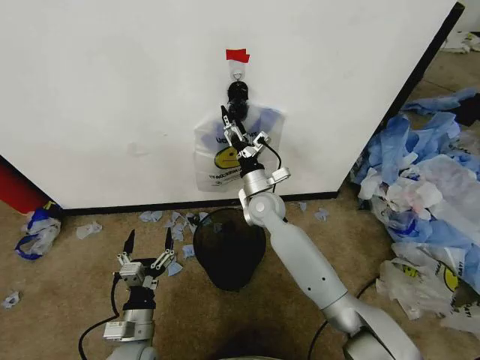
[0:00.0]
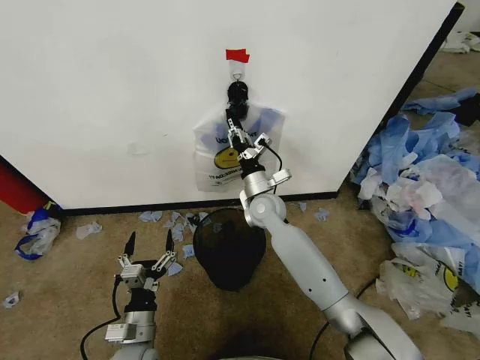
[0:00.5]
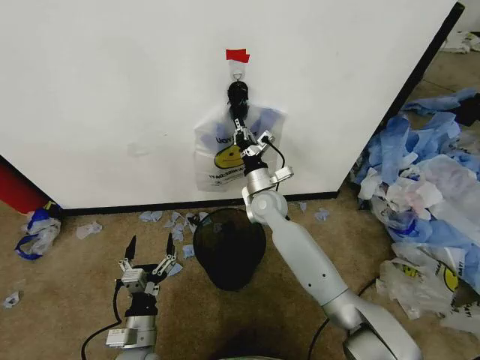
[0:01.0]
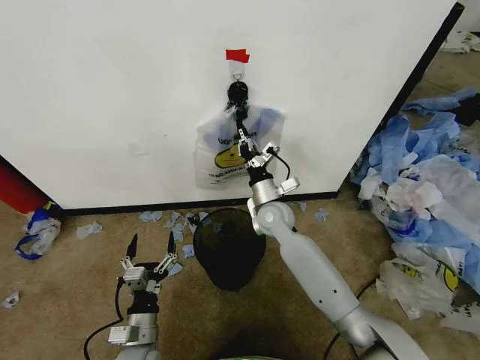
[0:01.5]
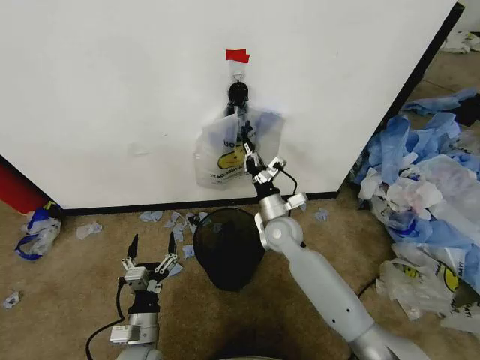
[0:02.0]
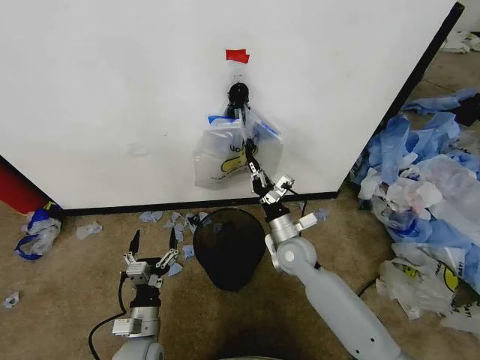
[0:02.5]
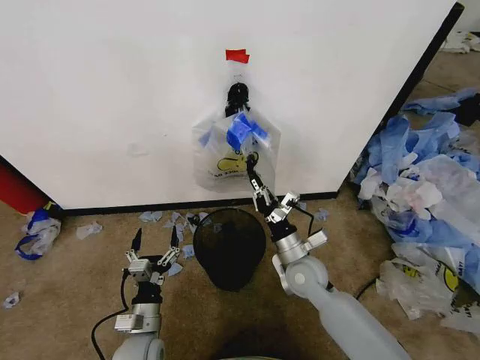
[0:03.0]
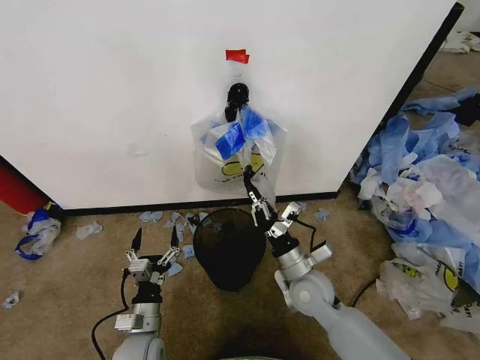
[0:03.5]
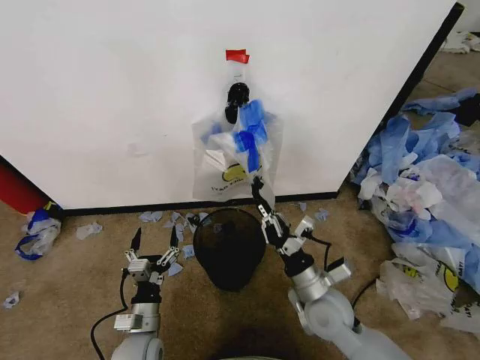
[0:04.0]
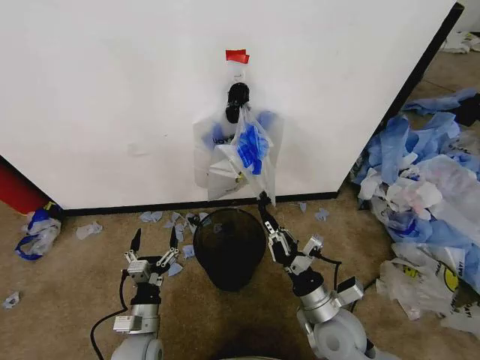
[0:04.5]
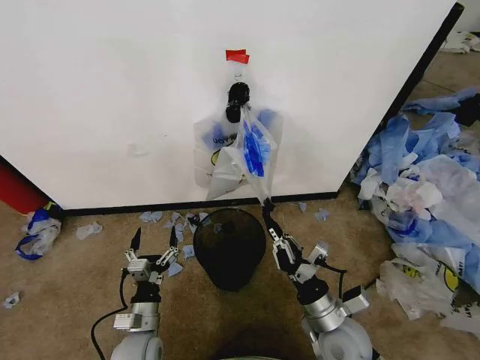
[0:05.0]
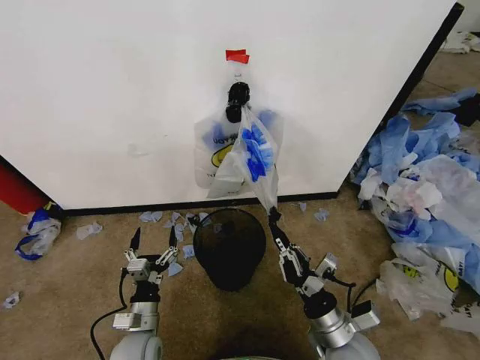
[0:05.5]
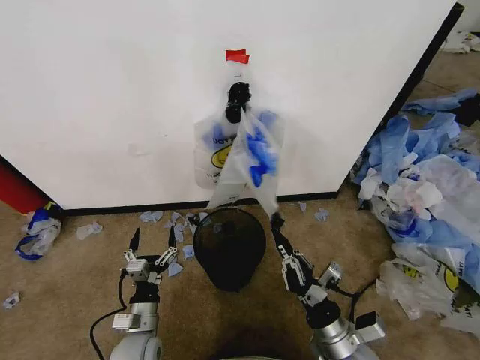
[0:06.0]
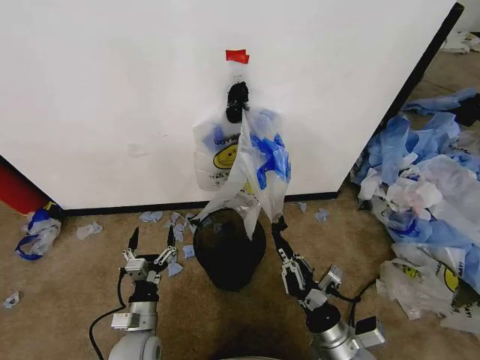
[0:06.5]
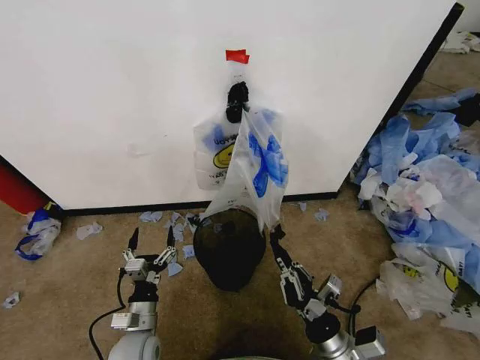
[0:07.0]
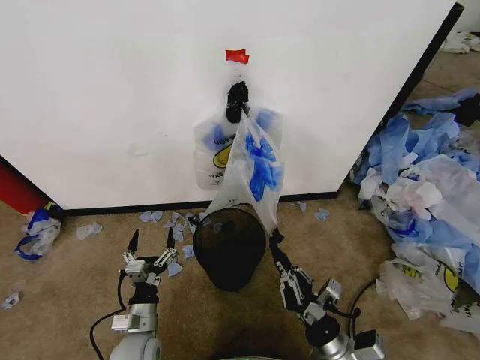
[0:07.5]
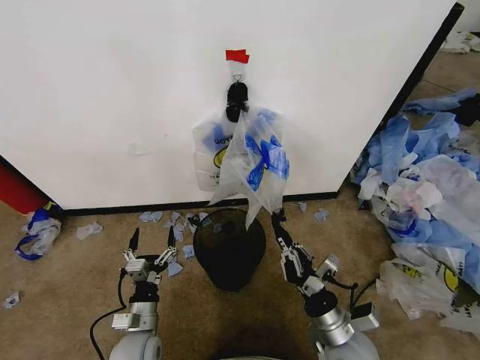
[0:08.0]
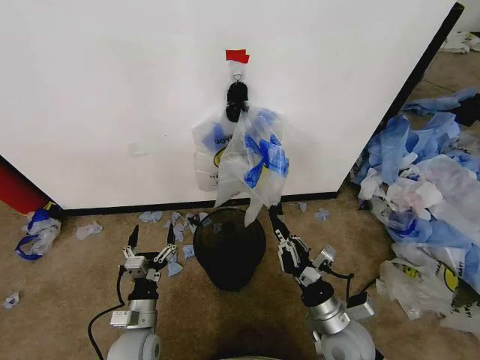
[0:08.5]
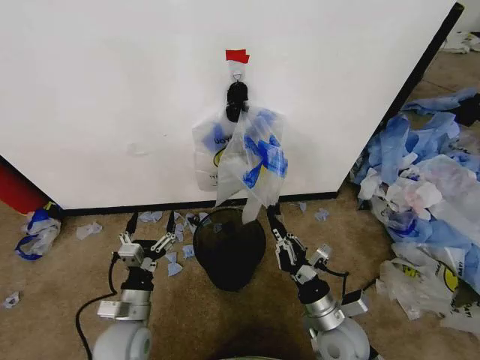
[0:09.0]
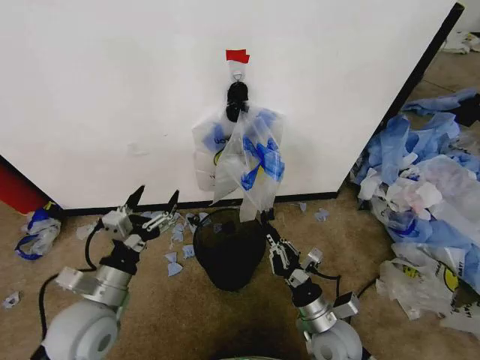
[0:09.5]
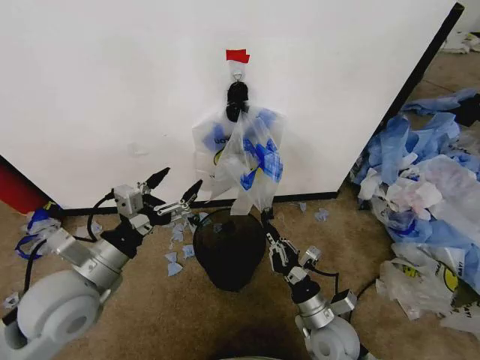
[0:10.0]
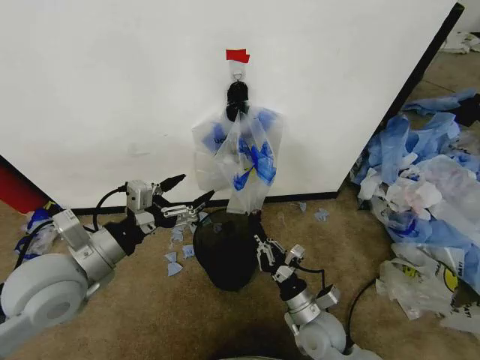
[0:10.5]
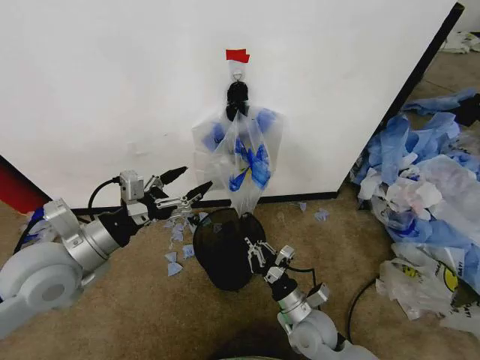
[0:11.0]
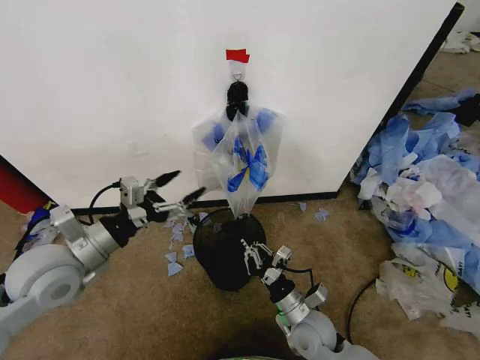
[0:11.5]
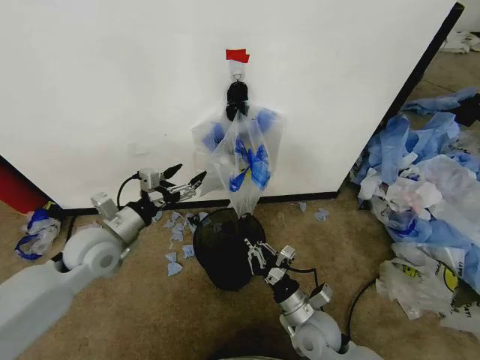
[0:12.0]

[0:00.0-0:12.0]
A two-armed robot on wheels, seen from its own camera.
Task of the whole recording: Pick up the garbage bag from the wall and place it over the trash bin.
0.0 to 2.0 s: The right gripper shifts by roughly 10 cm, and closes up.
2.0 to 4.0 s: The right gripper is displaced backward by some 20 cm.
4.0 to 6.0 s: The right gripper travels backward by about 10 cm.
6.0 to 8.0 s: The grippers make only small movements.
8.0 to 10.0 s: The left gripper goes approximately 25 cm upward.
10.0 to 12.0 s: The left gripper heads forward, covering about 10 cm.

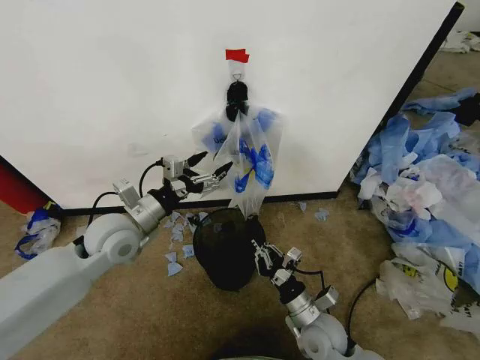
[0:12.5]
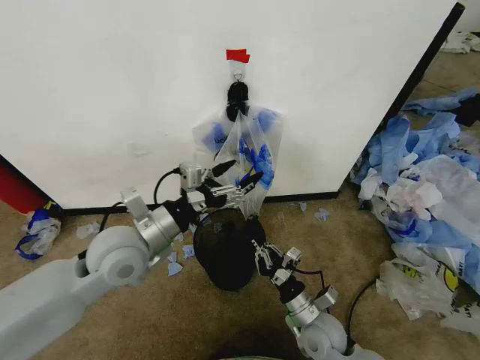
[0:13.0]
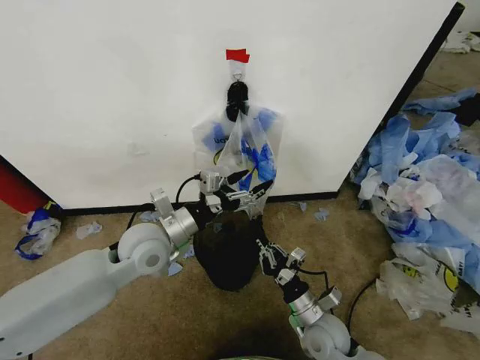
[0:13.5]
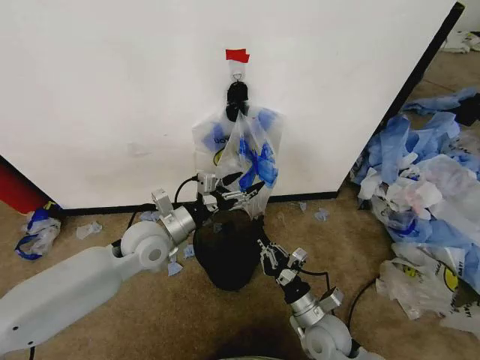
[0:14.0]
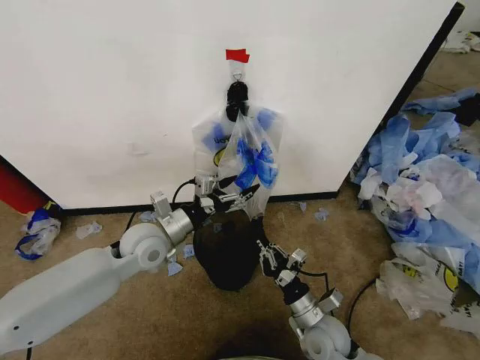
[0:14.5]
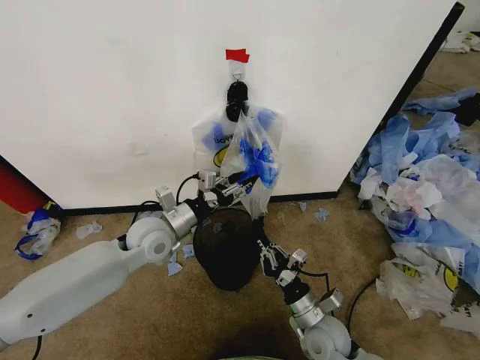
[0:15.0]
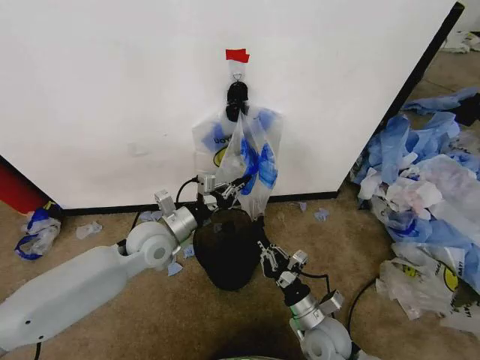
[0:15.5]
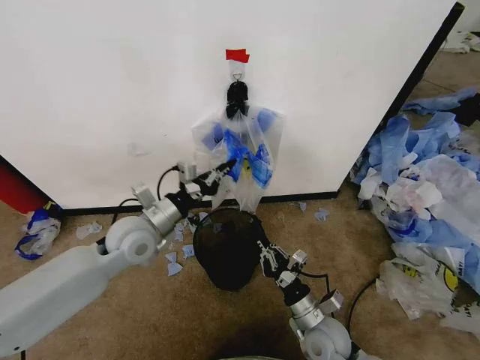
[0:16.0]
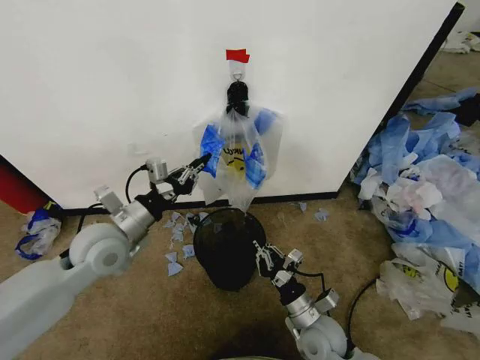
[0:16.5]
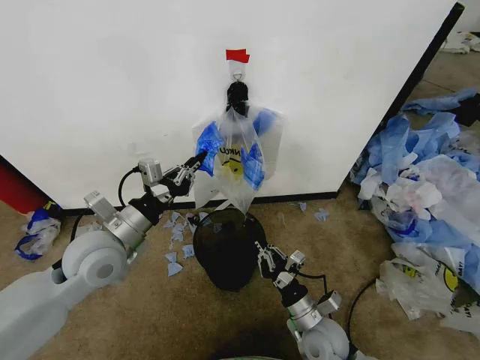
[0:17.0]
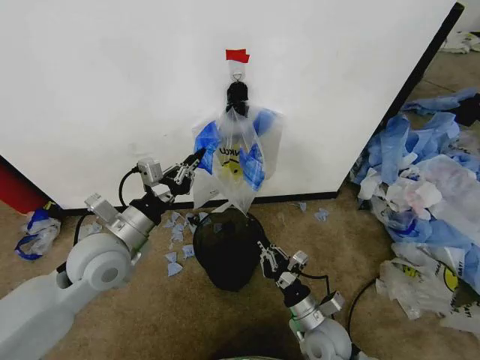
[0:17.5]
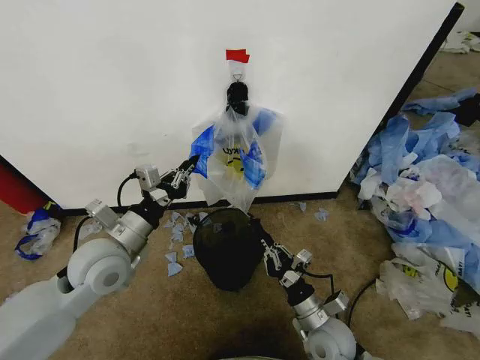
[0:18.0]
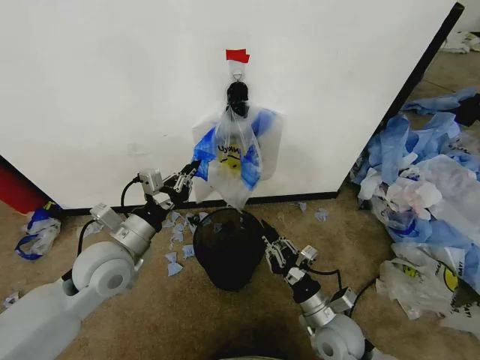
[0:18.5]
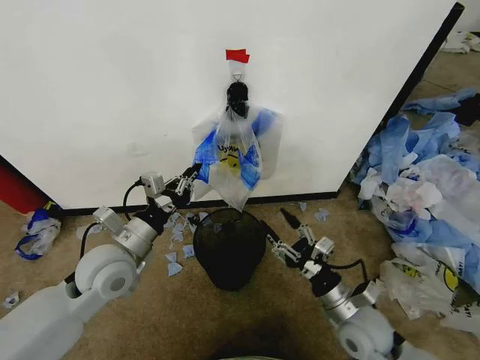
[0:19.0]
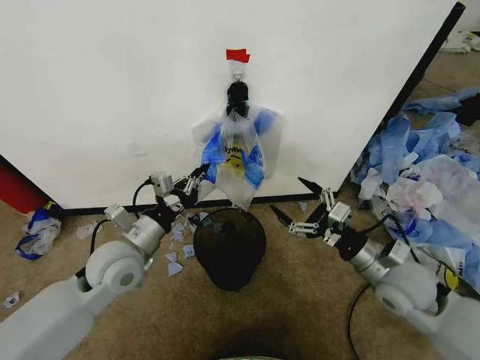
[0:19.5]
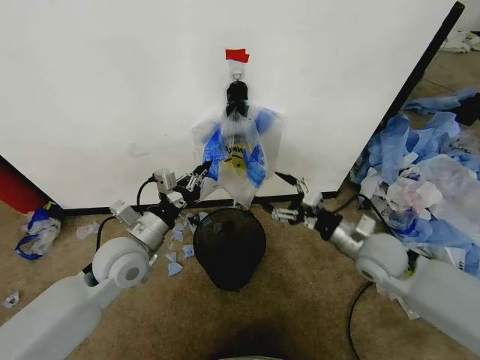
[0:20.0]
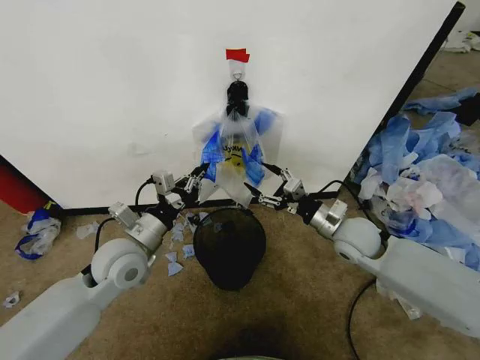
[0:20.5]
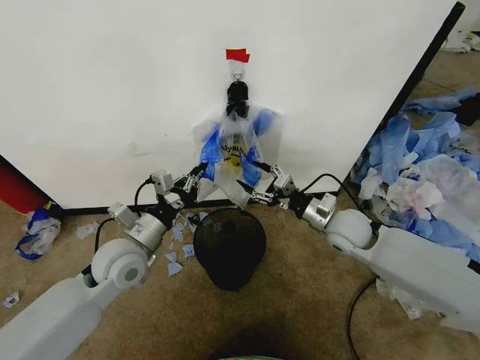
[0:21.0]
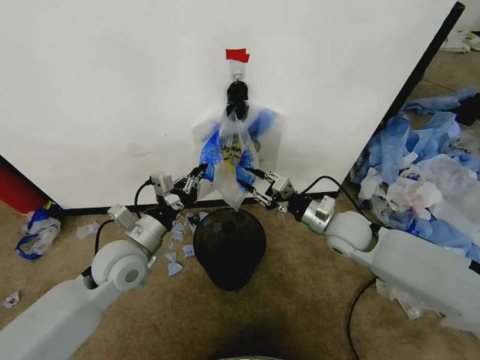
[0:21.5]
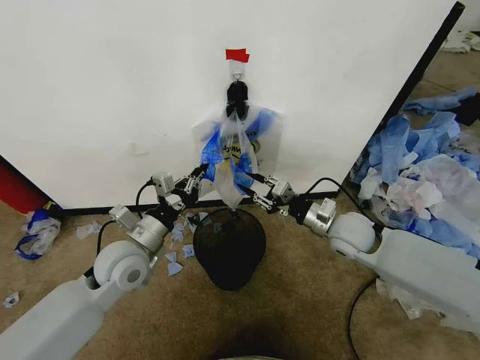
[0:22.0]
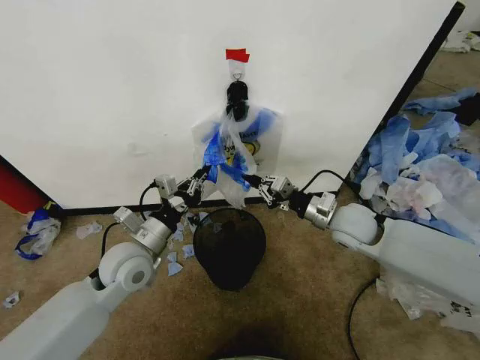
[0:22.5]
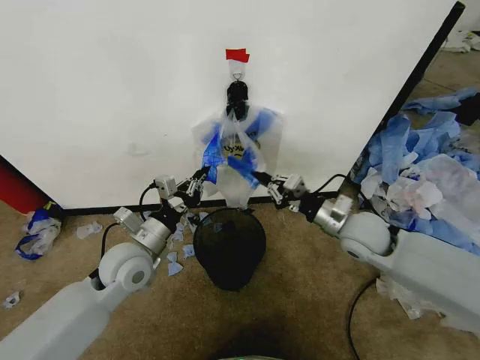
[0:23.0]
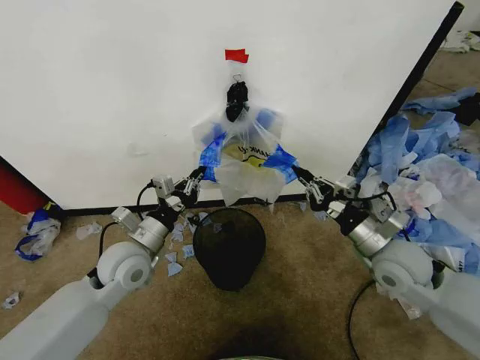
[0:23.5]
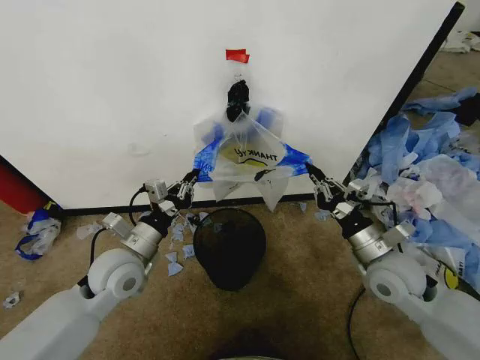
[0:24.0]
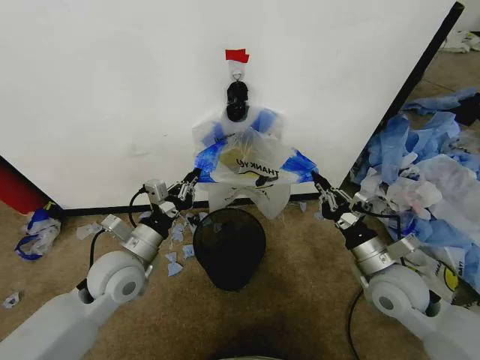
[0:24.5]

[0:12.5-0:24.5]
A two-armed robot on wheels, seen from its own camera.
Task of the whole recording: Pick up the garbage bag from the wall and place it over the trash bin.
12.5 to 14.5 s: The left gripper shifts by about 5 cm.
14.5 to 16.5 s: The left gripper heads to the left, covering approximately 5 cm, and closes.
16.5 to 18.5 s: The grippers move only a little.
18.5 to 20.5 s: The right gripper goes approximately 20 cm forward and upward, and opens up.
20.5 to 22.5 s: The right gripper closes up.
22.5 to 24.5 s: The right gripper goes about 15 cm backward and to the right.

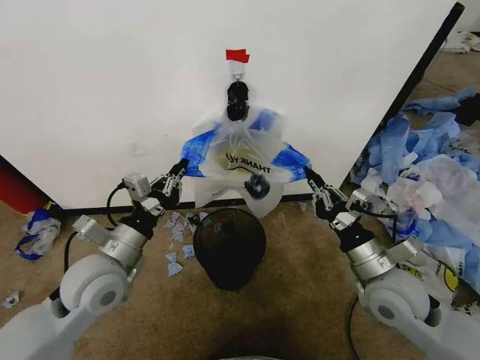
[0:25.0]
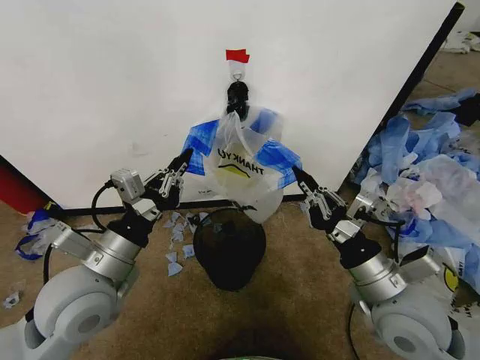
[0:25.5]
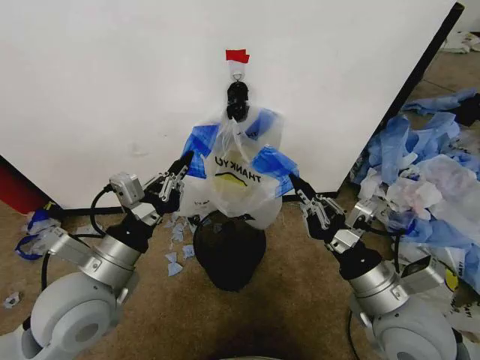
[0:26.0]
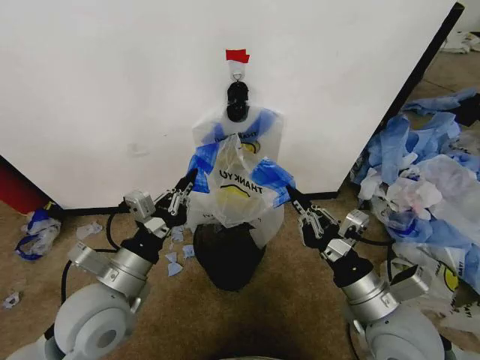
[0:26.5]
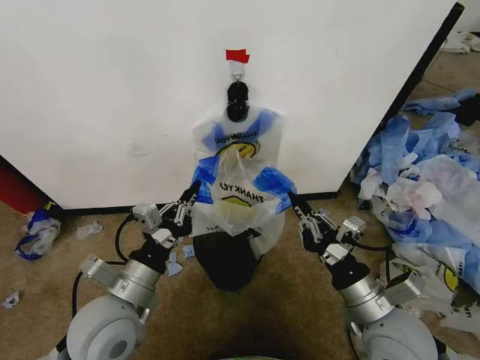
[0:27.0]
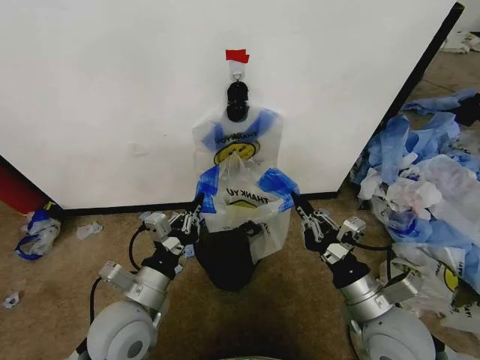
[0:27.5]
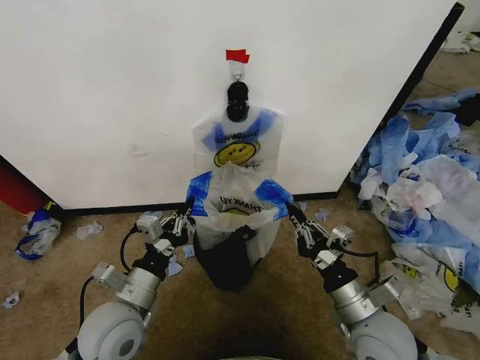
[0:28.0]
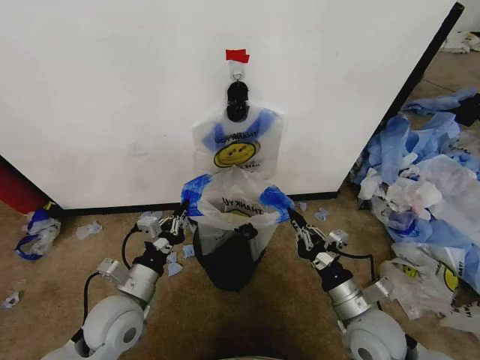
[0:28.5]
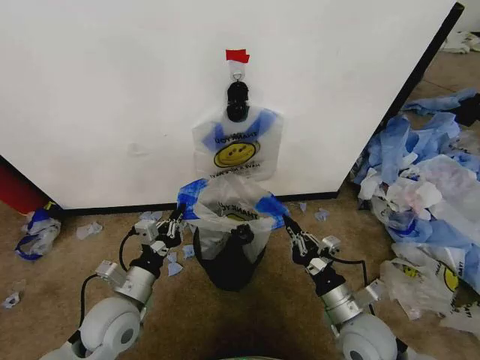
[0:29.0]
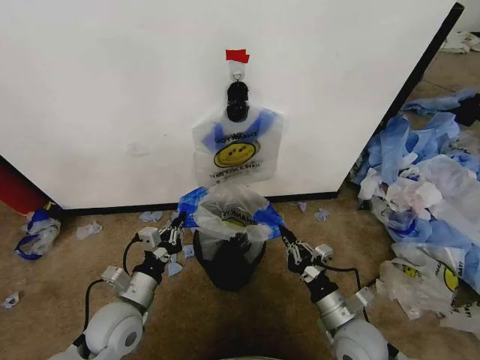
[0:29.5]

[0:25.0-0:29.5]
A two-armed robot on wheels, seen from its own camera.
Task of the whole recording: Pick up the garbage bag from the wall and place it over the trash bin.
25.0 to 27.0 s: Both grippers travel together backward, roughly 5 cm.
27.0 to 29.5 s: Both grippers move downward, approximately 10 cm.
